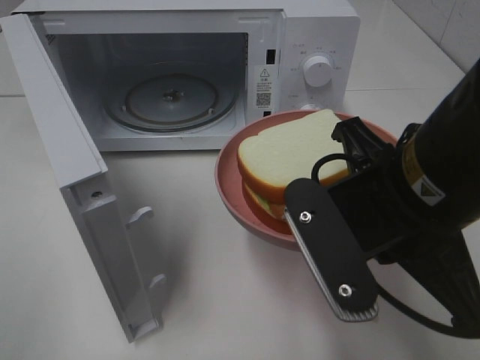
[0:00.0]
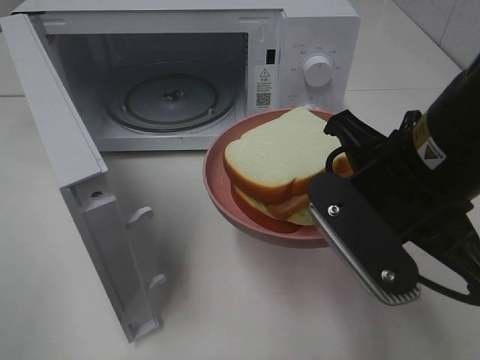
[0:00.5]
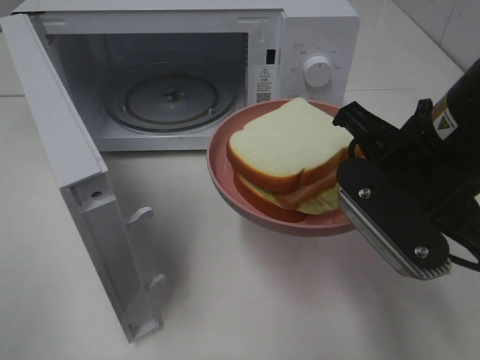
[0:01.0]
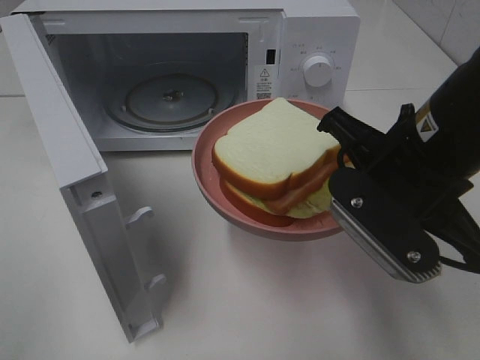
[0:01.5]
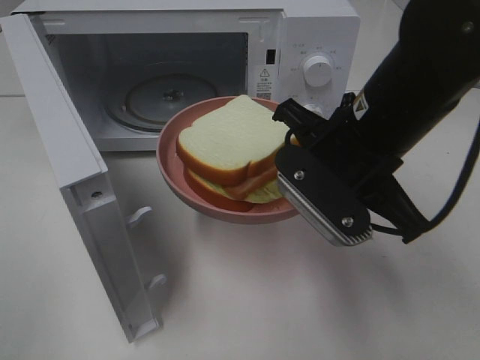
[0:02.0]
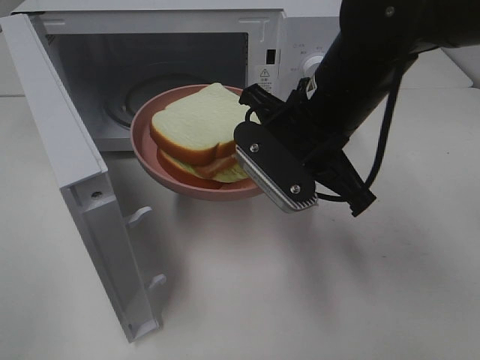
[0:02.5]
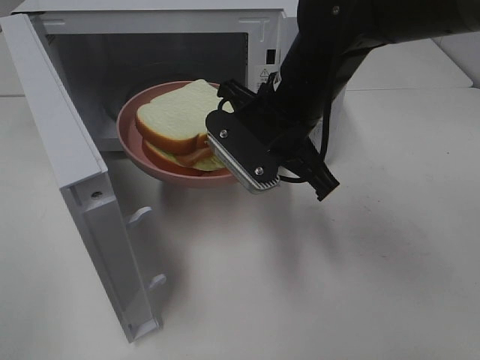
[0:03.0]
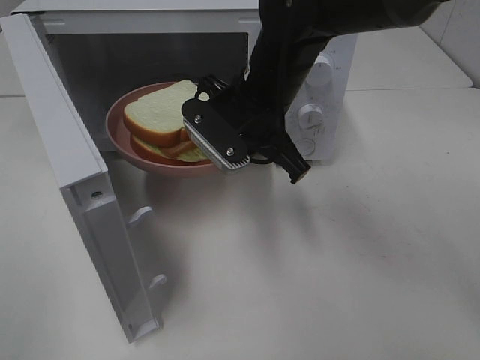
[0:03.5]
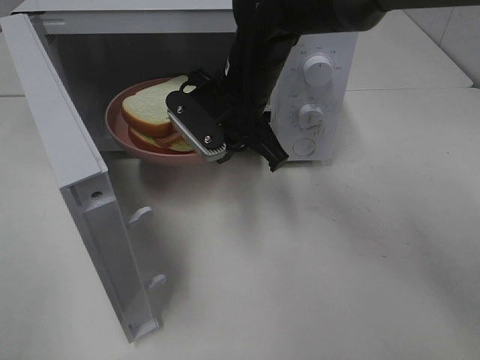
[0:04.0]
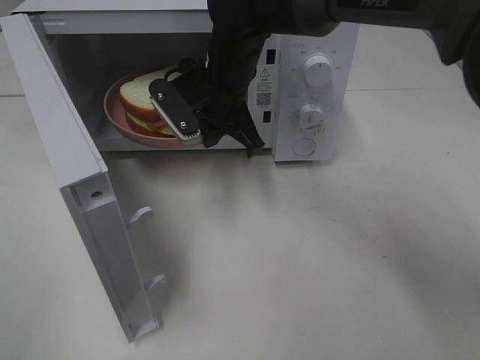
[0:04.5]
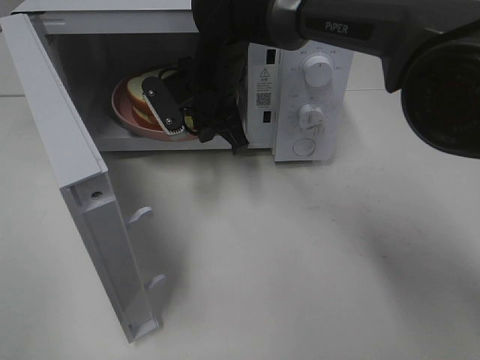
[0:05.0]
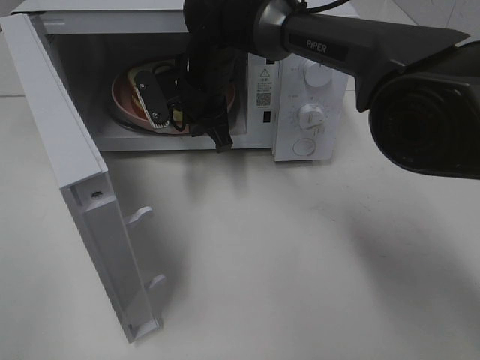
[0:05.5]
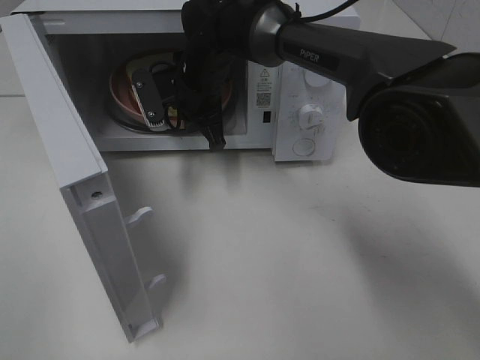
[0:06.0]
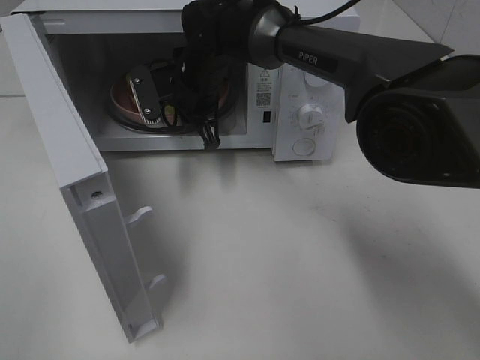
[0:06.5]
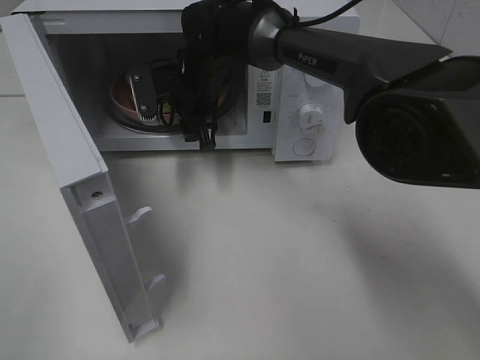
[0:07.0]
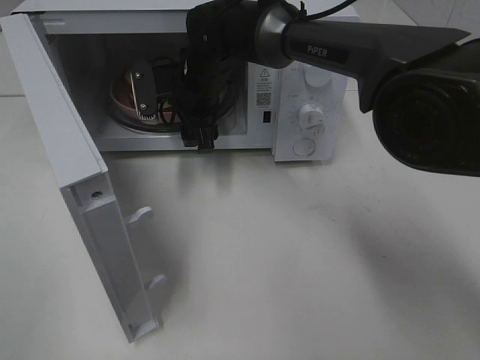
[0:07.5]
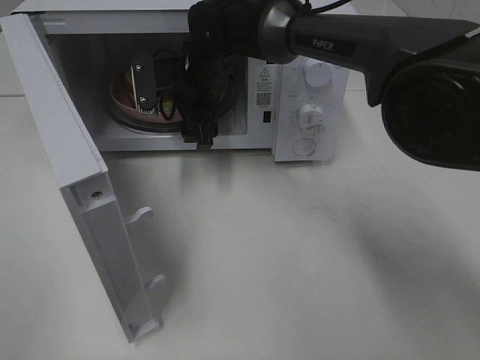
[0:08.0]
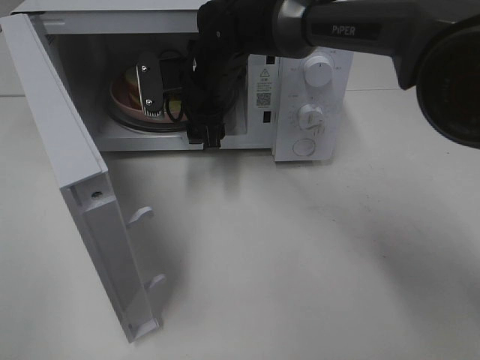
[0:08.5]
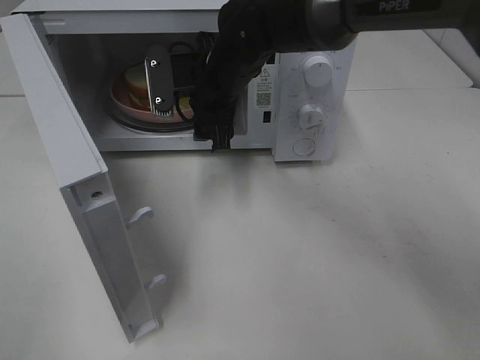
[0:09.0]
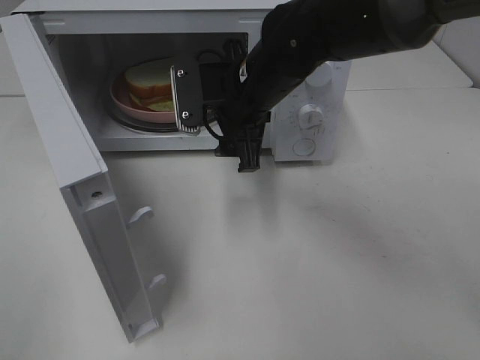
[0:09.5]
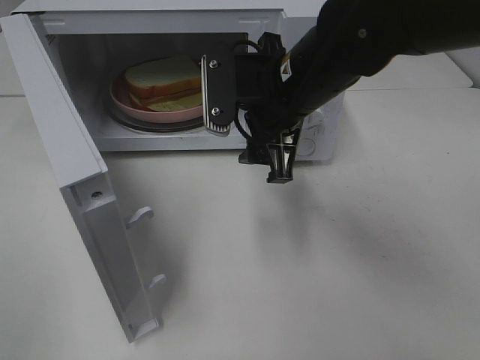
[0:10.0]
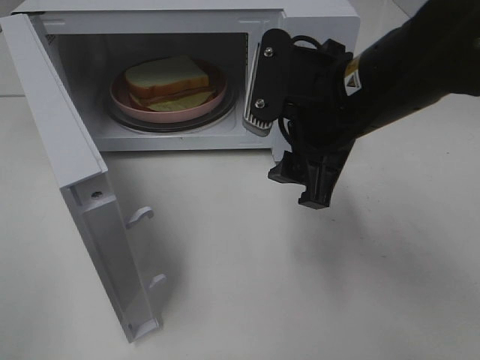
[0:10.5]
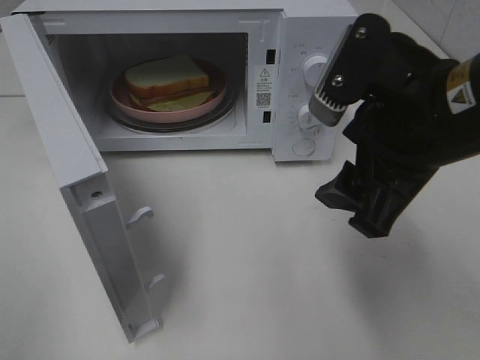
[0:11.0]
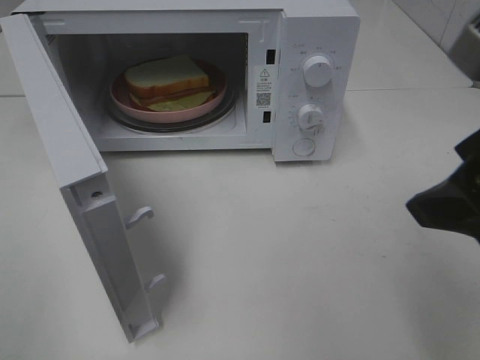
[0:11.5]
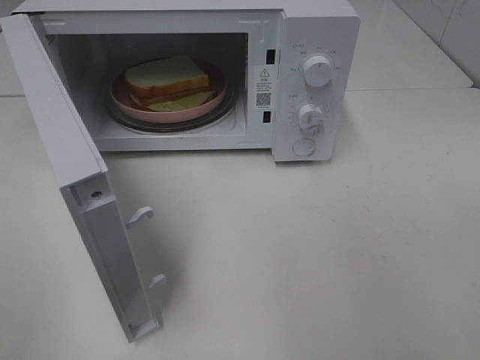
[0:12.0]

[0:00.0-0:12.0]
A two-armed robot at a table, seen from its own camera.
Task of the whole recording: Heat Sandwich.
Step, 0:00.0 to 0:09.0: Right hand: place the plate in the microwave.
0:00.0 to 0:02.0: The right gripper moves forward, about 10 cm.
0:02.0 to 0:04.0: The right gripper goes roughly 15 cm forward and to the left.
0:04.0 to 0:06.0: The right gripper is displaced forward and to the left by some 10 cm.
0:06.0 to 0:08.0: The right gripper opens its fingers.
0:08.0 to 0:10.0: The right gripper moves backward, to the right and upward, approximately 20 cm.
0:10.0 to 0:12.0: The right gripper heads backward, to the right and upward, covering some 30 cm.

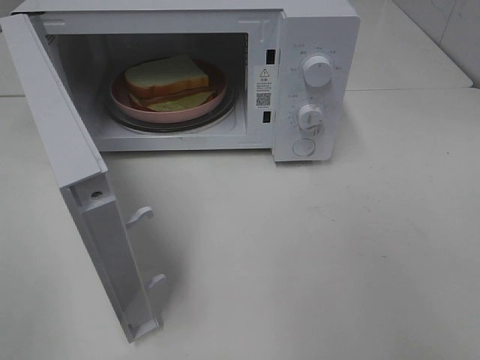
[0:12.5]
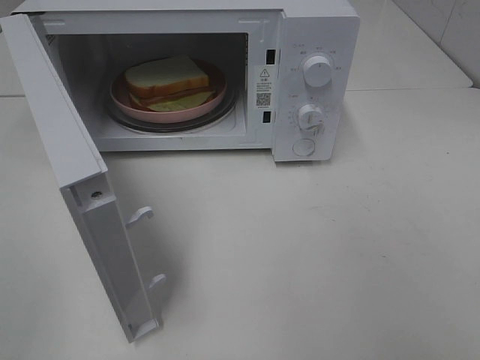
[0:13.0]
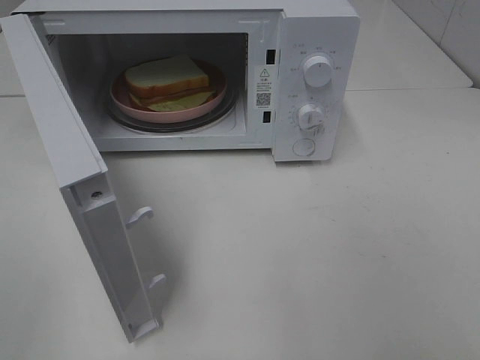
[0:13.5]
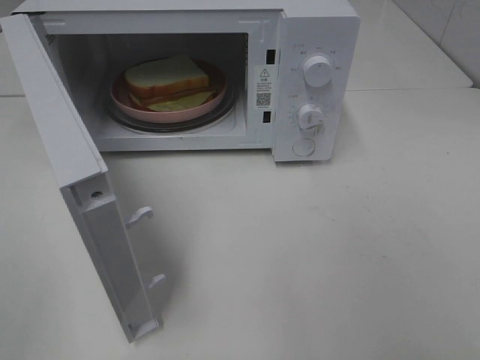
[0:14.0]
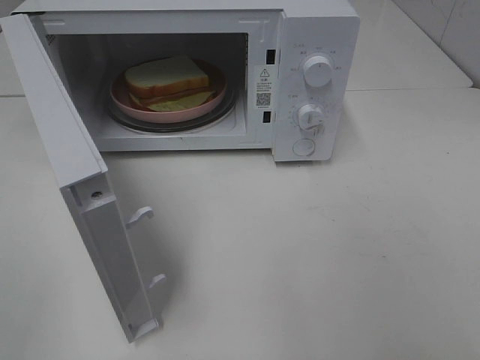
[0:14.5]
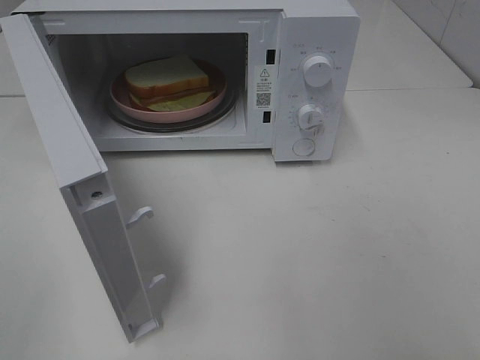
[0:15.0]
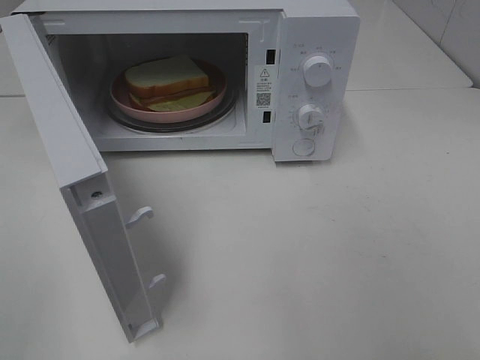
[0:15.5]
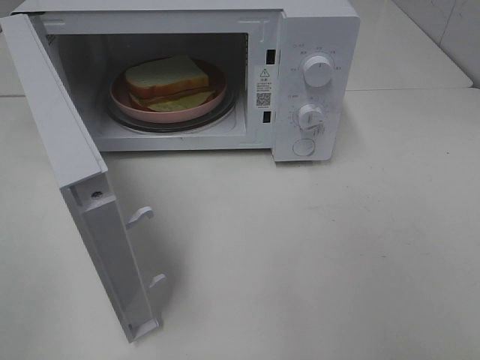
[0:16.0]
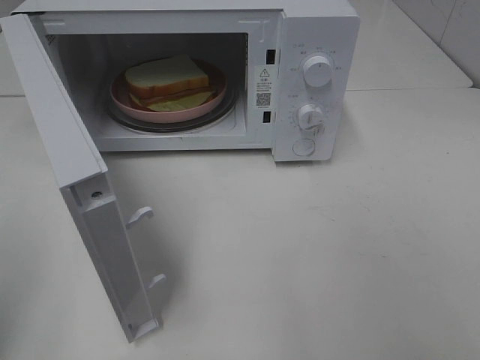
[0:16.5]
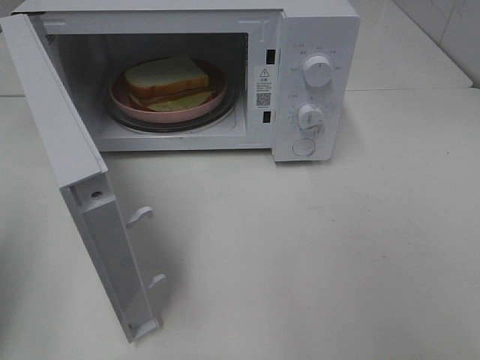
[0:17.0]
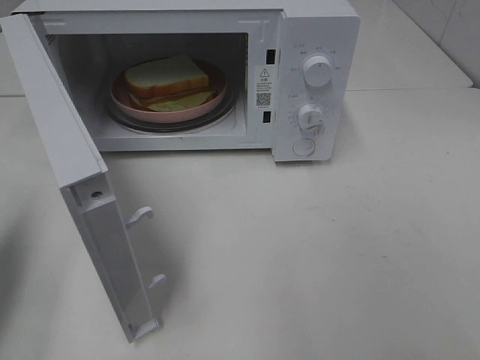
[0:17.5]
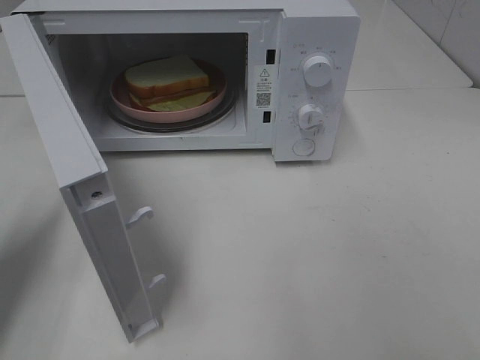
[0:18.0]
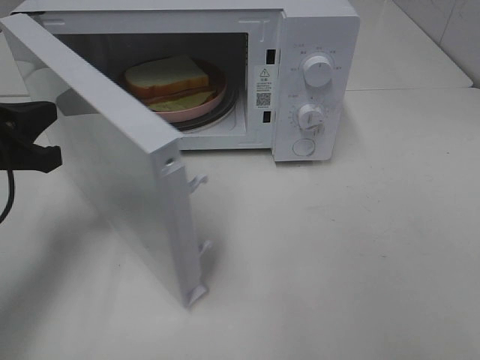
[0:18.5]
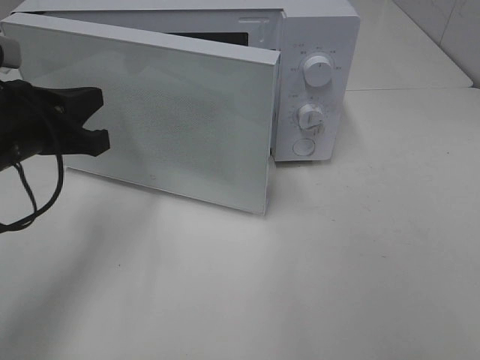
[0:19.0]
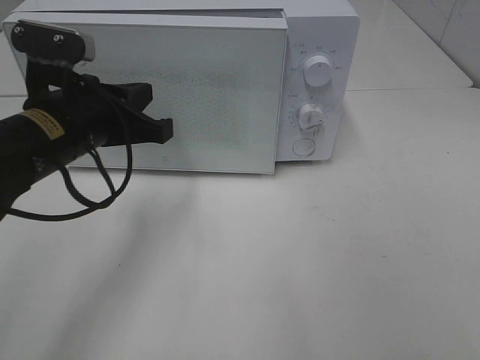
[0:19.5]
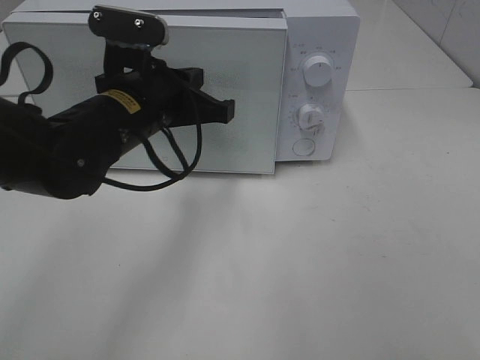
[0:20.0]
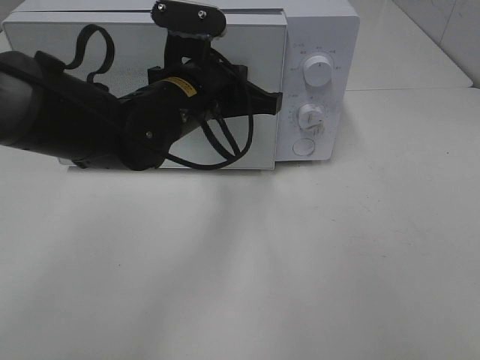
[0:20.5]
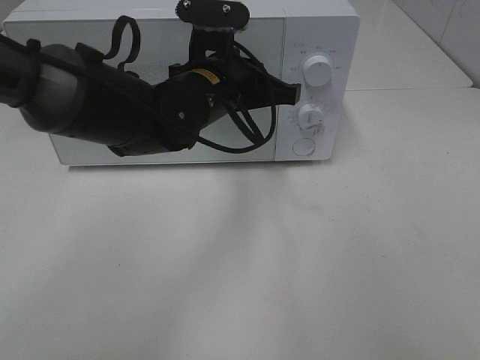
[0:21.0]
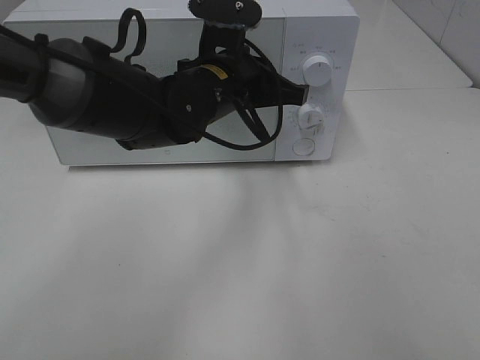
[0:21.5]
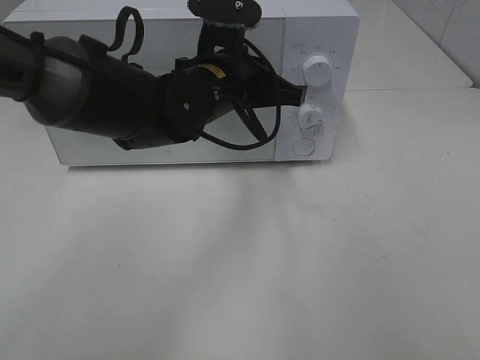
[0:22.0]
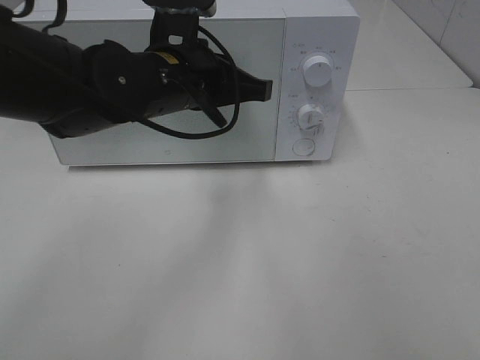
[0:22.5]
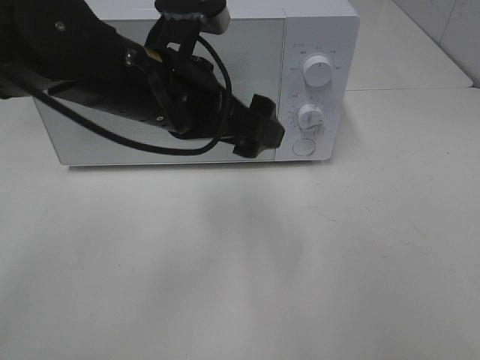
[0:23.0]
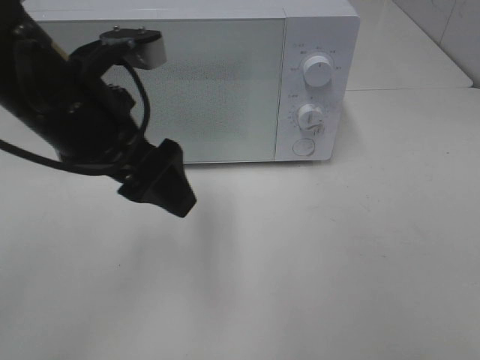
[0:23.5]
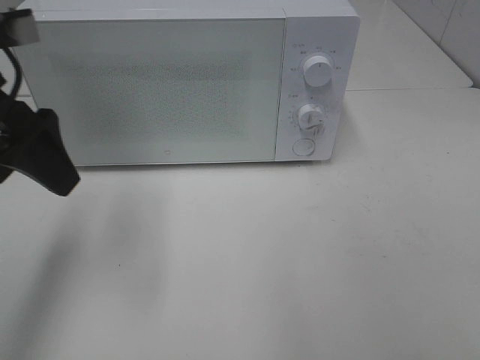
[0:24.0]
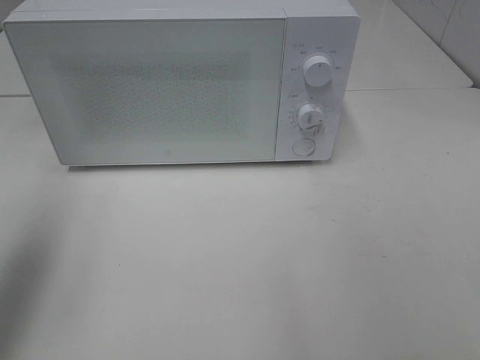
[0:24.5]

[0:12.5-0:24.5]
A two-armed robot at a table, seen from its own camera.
Task of the whole recording: Heat Sandwich.
Step, 0:12.5 to 0:22.0: Left hand: close the microwave door.
0:16.5 to 0:18.5: The left gripper travels forward and downward by approximately 20 cm.
0:18.5 to 0:20.5: The left gripper is displaced to the right by some 20 cm.
0:20.5 to 0:22.5: There are only small adjustments of the grippers.
0:22.5 to 0:24.5: The left gripper travels to the left and backward by approximately 30 cm, and opens up.

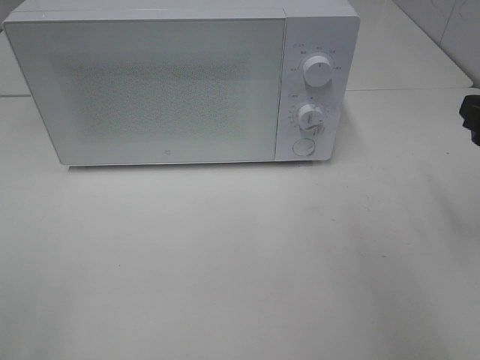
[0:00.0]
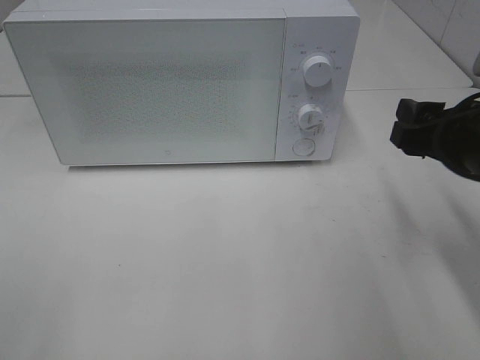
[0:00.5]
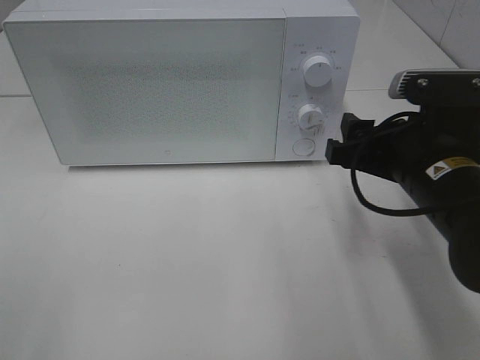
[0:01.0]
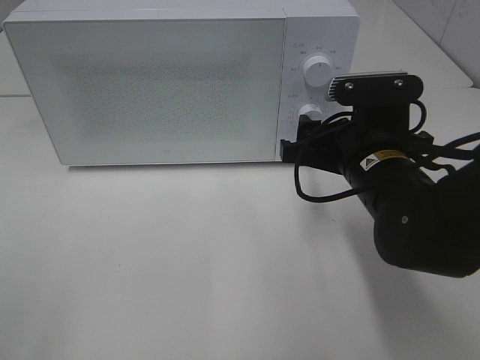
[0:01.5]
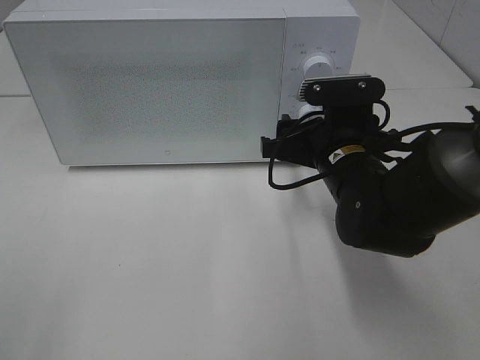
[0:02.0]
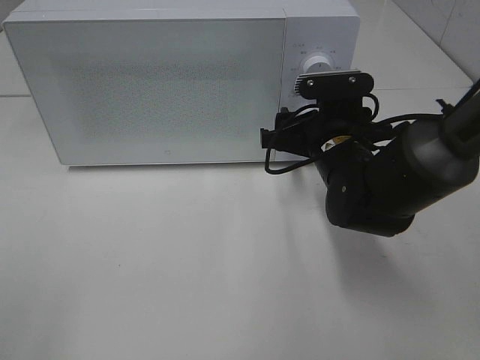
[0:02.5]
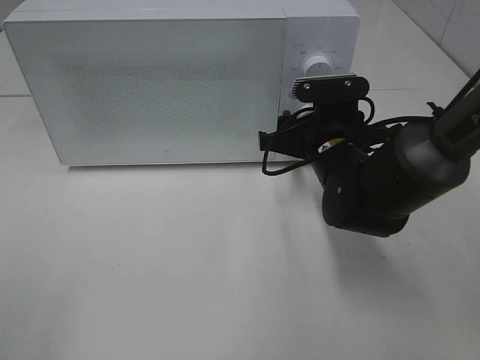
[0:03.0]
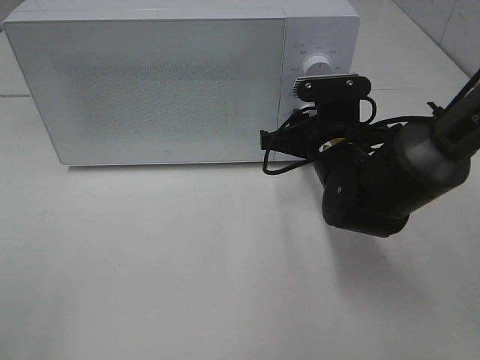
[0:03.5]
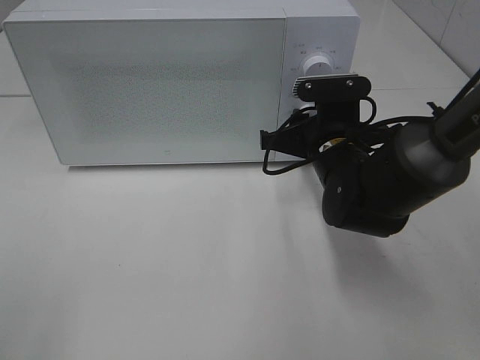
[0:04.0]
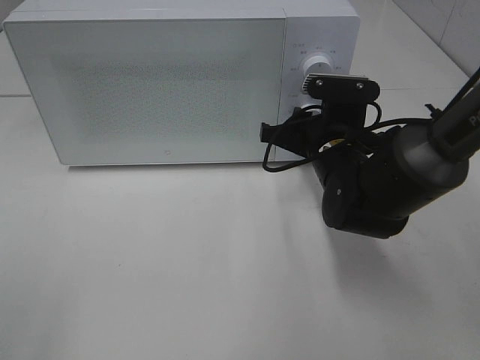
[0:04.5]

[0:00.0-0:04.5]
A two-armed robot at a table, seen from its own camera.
Task of the whole recording: Heat Sandwich.
0:00.0 to 0:02.0: The right gripper moves to the left, downward and forward, some 20 cm.
0:02.0 to 0:04.5: The right gripper closes its fingers.
